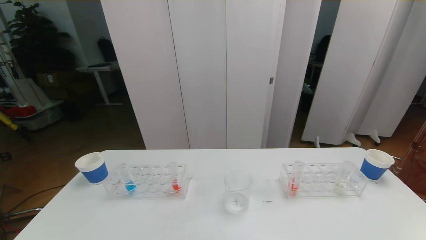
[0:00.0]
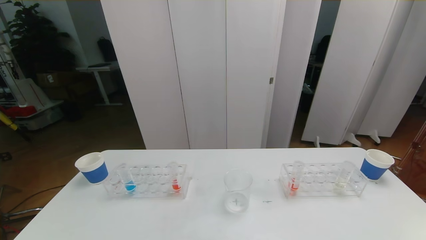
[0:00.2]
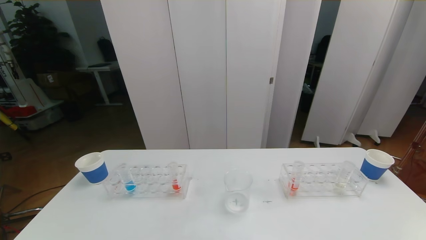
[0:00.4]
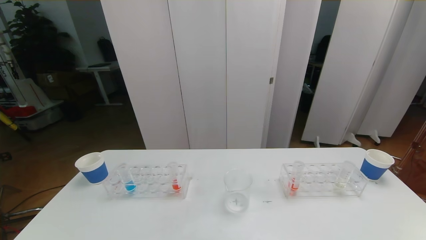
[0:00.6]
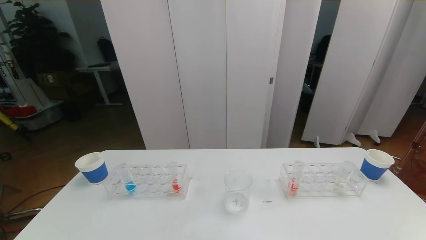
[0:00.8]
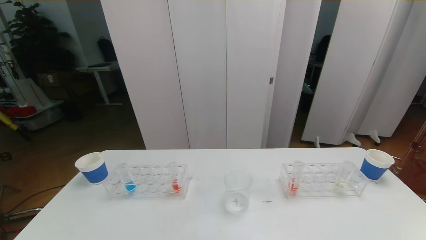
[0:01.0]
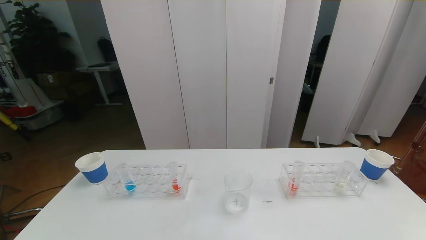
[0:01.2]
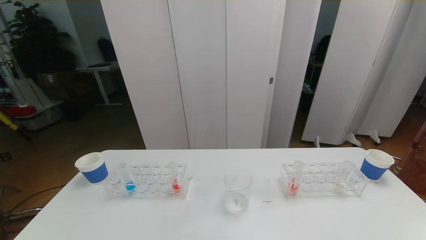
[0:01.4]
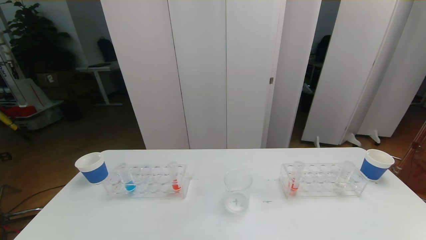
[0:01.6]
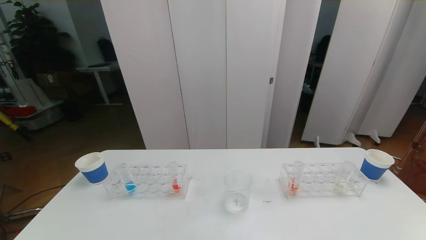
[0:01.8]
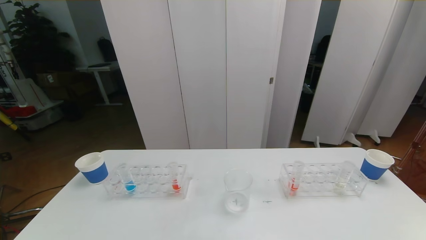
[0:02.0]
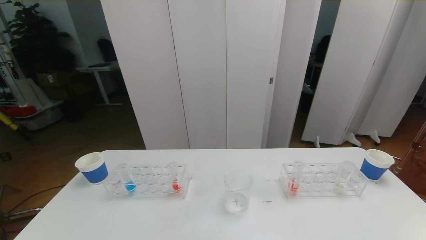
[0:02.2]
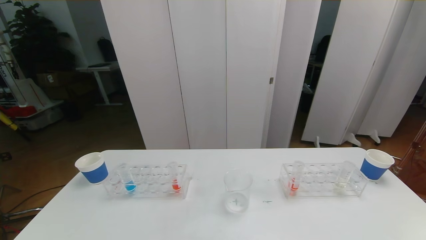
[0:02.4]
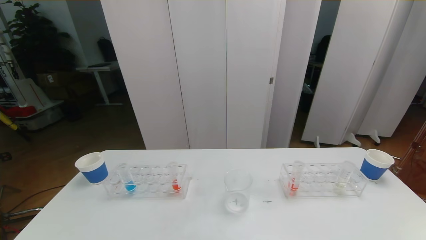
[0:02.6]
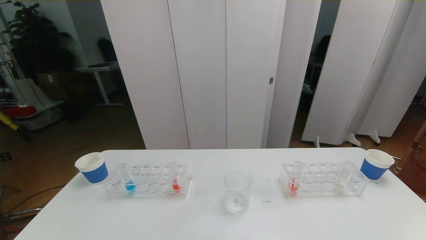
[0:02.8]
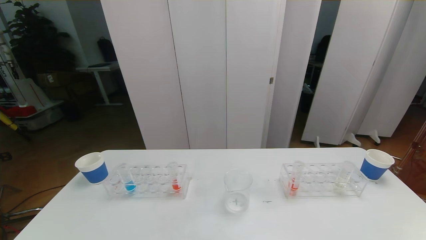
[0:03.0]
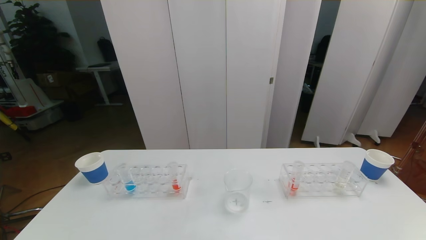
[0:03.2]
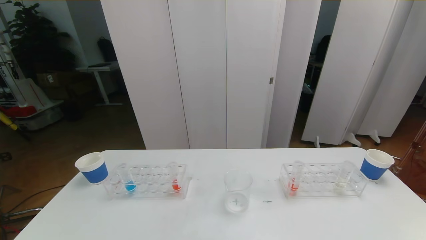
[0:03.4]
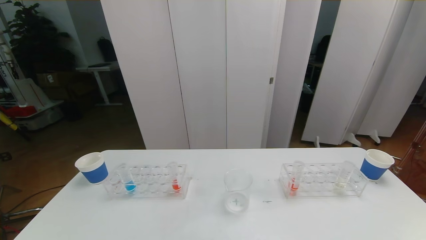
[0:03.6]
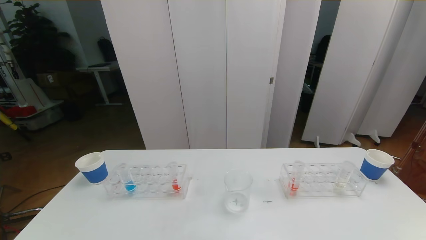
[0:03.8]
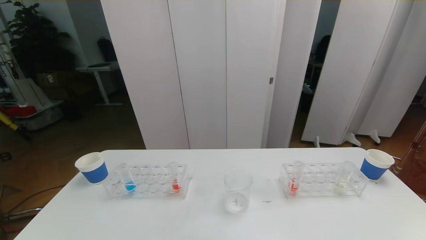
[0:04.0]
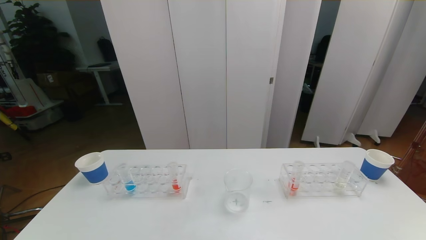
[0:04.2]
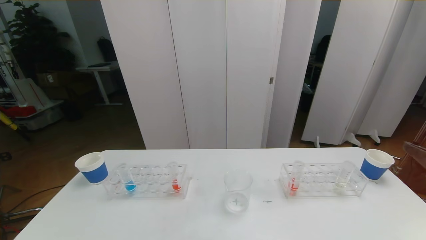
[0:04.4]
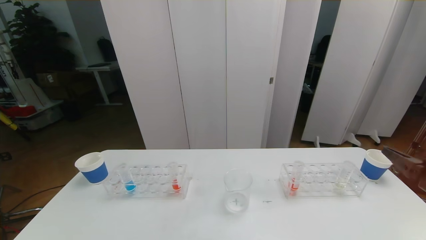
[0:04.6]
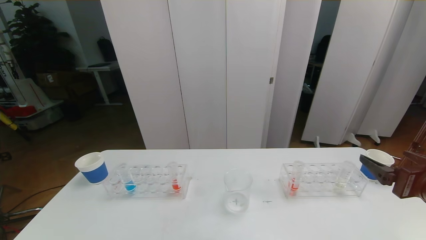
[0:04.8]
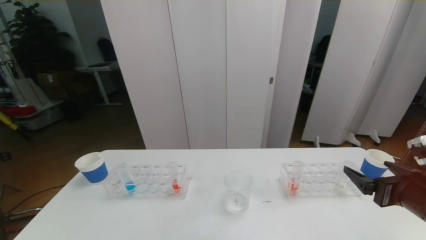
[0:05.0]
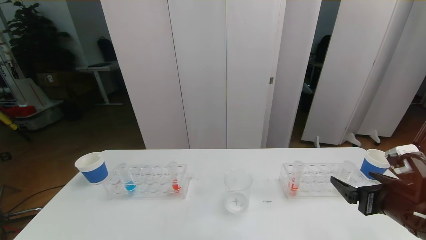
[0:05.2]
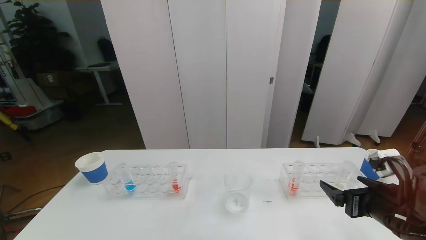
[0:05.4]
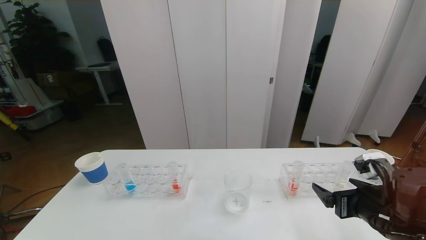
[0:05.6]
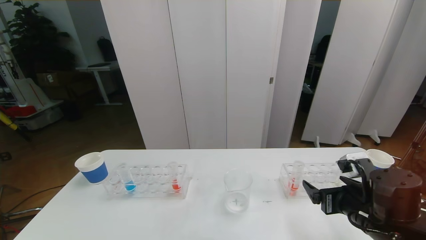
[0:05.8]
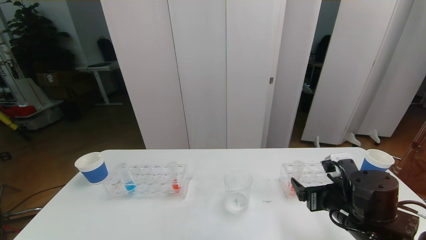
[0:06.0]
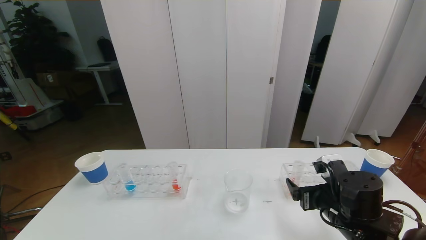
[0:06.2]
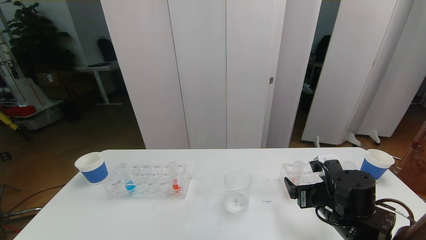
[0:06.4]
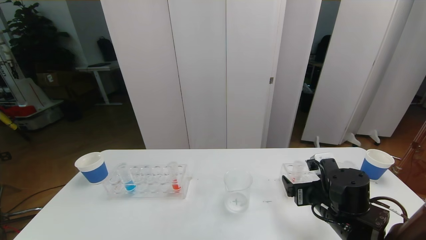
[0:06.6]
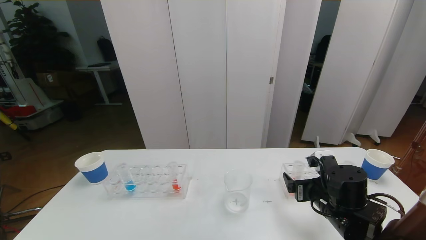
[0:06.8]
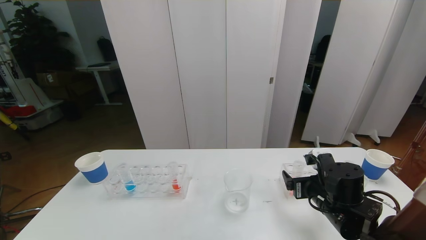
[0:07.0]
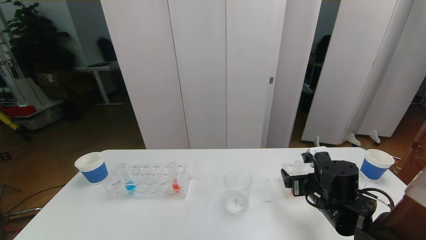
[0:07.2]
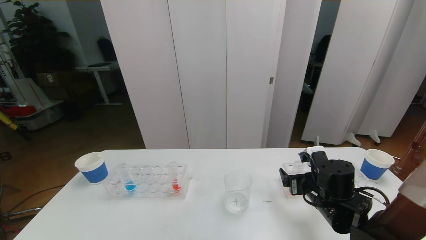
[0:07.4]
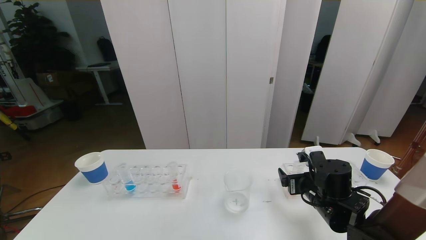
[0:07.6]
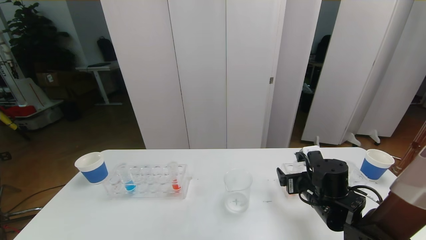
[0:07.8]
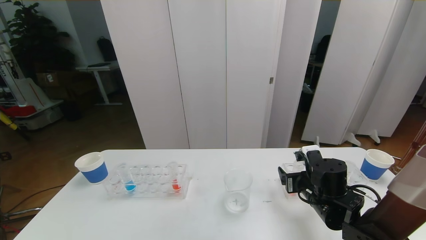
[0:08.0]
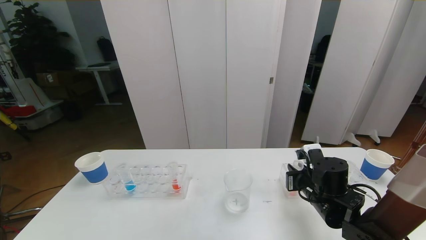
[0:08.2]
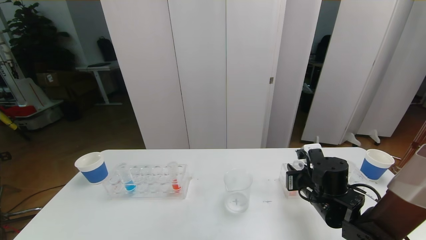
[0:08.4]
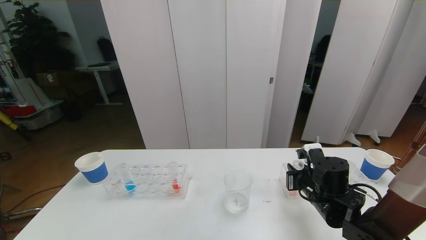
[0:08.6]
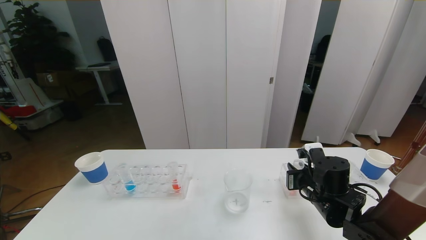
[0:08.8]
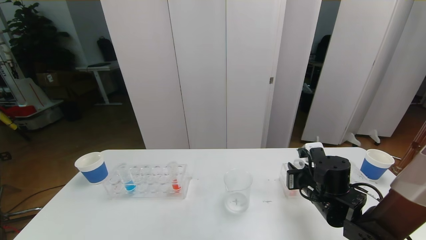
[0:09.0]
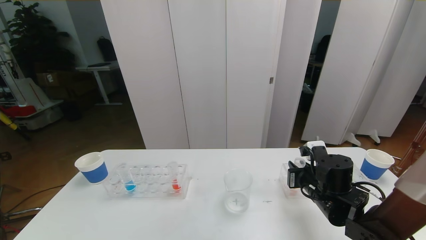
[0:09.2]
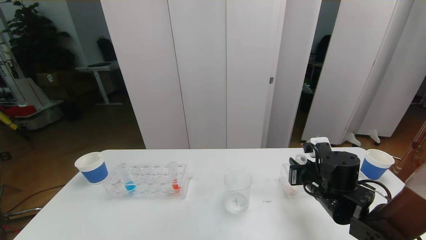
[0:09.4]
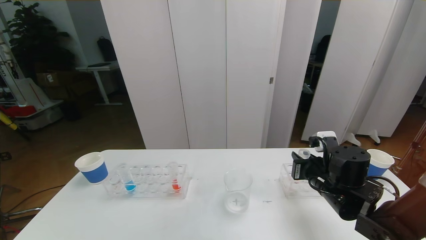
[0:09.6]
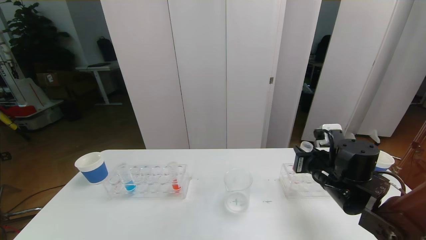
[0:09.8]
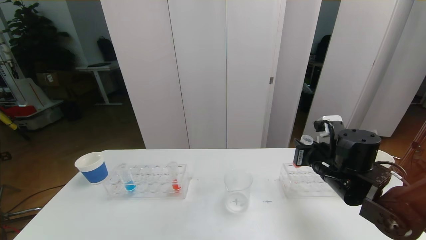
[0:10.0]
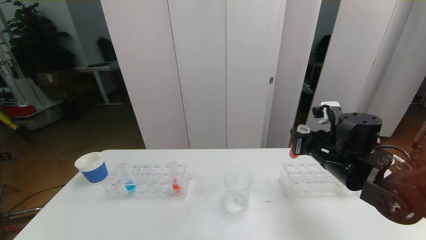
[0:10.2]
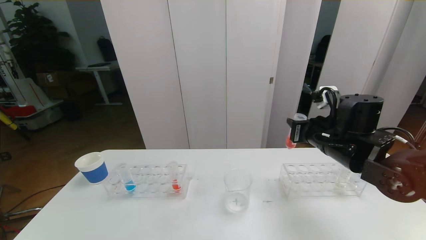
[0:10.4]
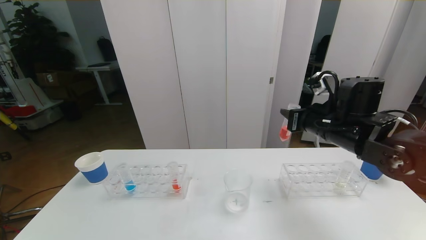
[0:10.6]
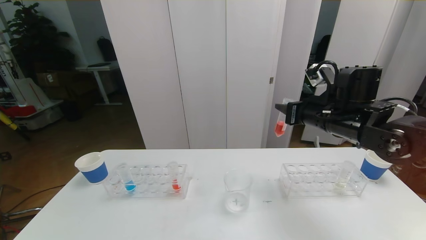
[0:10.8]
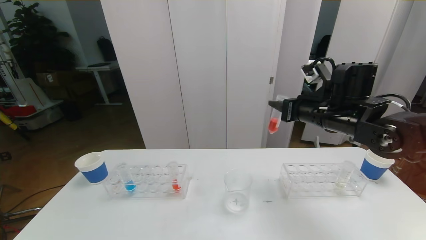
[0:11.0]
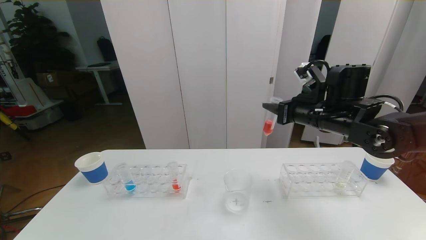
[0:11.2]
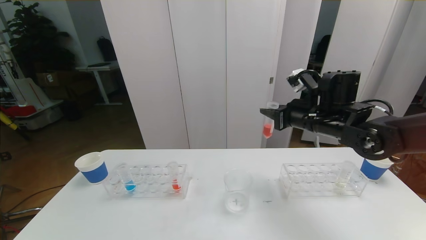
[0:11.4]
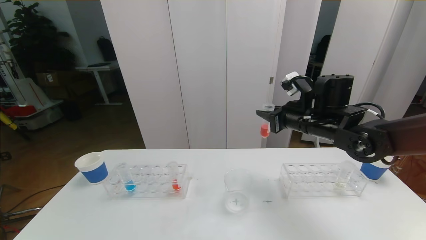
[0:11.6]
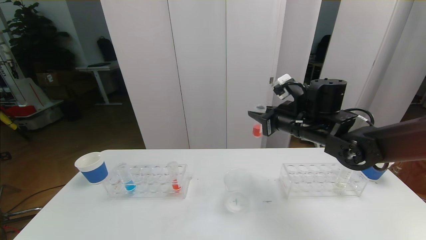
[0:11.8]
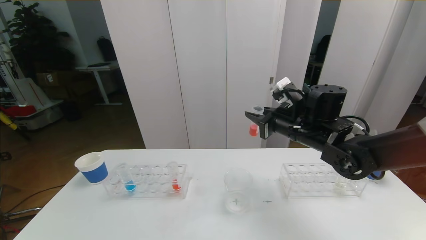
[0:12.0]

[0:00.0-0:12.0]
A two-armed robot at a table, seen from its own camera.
Task of the whole recording: pick up the test tube with red pigment the test tube with blue pigment and the test tube with white pigment by grippers and pour them into the beaker.
0:00.0 to 0:01.6: Both grippers stay put.
0:04.4 to 0:06.0: The right gripper goes roughly 20 cm downward, to the left and forward.
0:06.0 to 0:07.6: The right gripper heads forward, covering about 5 cm.
0:07.6 to 0:09.0: The right gripper closes.
0:09.0 to 0:10.4: The right gripper moves upward, roughly 10 cm.
0:10.4 to 0:12.0: The right gripper changes place by some 5 cm.

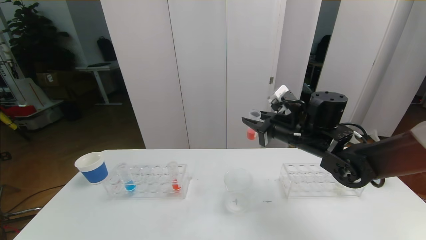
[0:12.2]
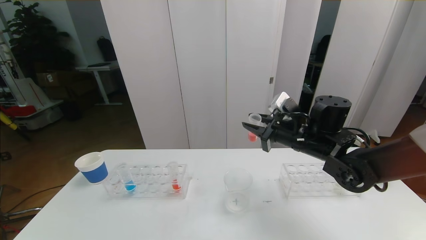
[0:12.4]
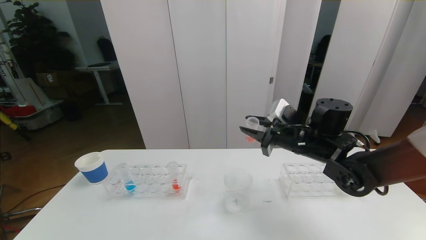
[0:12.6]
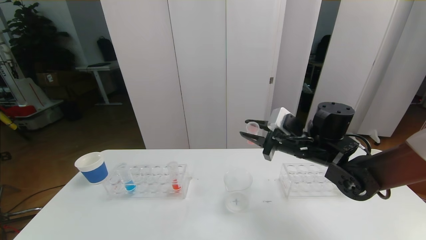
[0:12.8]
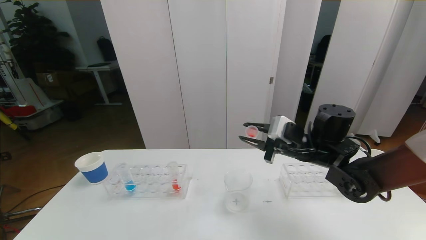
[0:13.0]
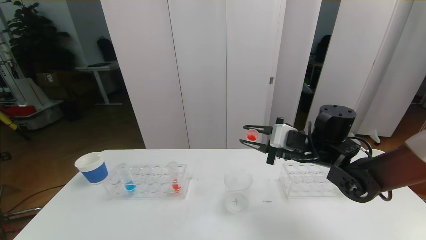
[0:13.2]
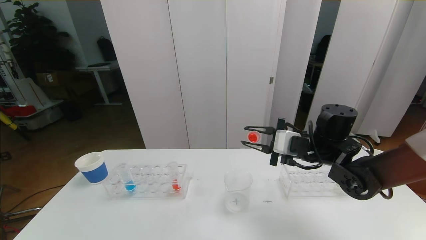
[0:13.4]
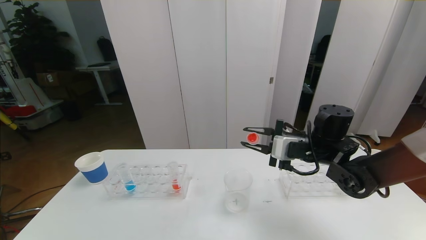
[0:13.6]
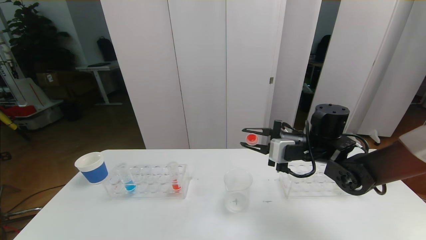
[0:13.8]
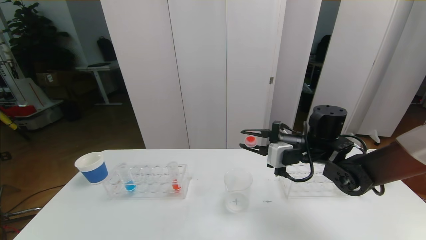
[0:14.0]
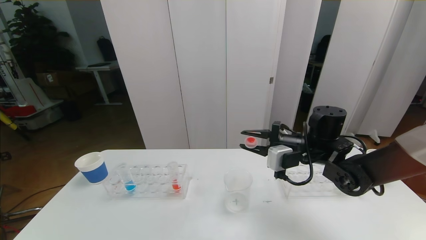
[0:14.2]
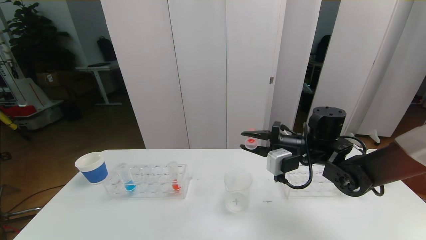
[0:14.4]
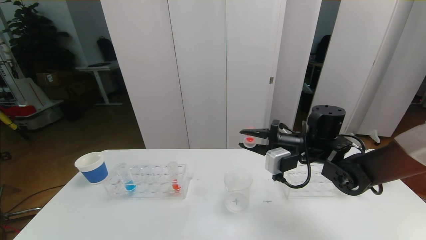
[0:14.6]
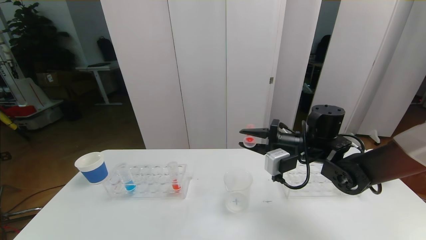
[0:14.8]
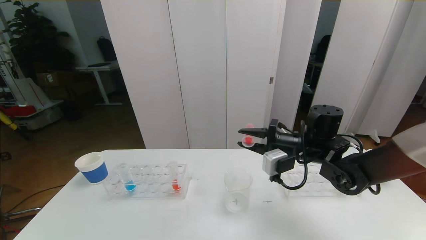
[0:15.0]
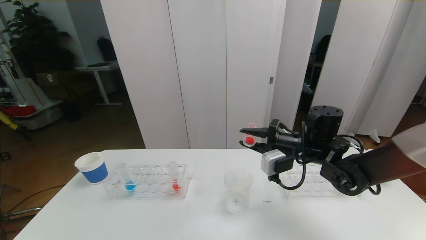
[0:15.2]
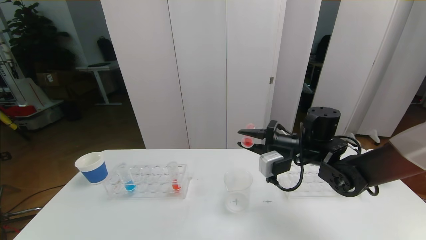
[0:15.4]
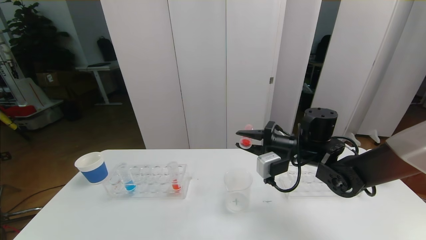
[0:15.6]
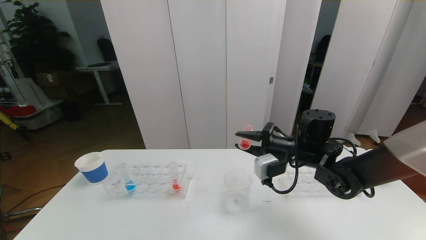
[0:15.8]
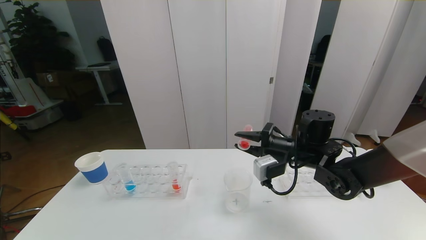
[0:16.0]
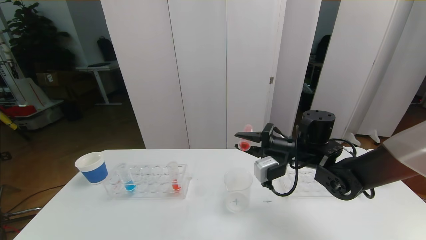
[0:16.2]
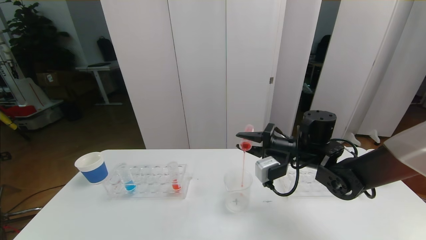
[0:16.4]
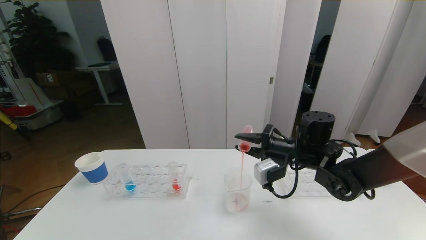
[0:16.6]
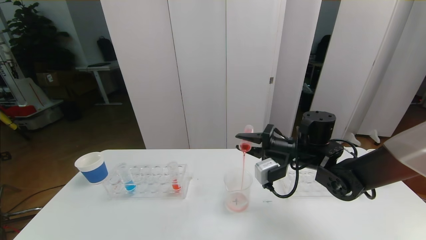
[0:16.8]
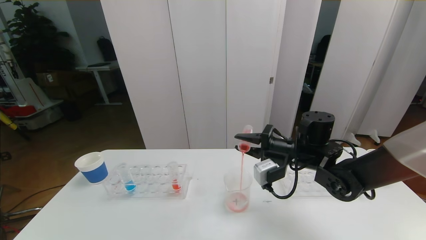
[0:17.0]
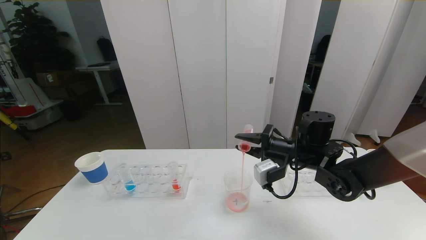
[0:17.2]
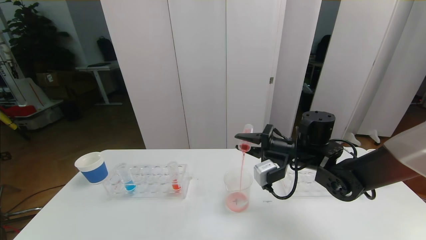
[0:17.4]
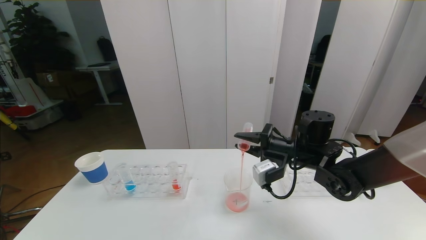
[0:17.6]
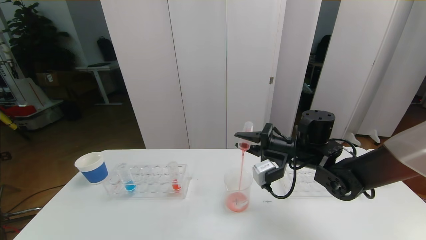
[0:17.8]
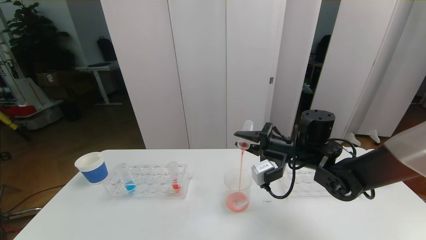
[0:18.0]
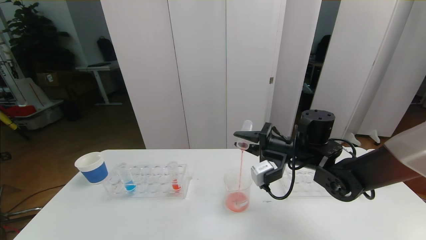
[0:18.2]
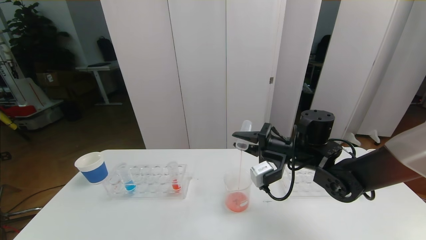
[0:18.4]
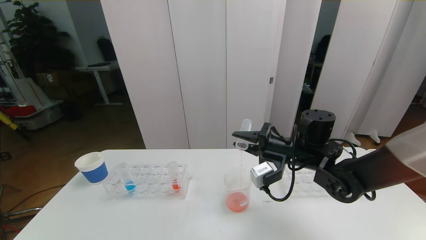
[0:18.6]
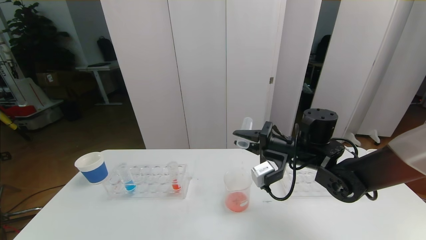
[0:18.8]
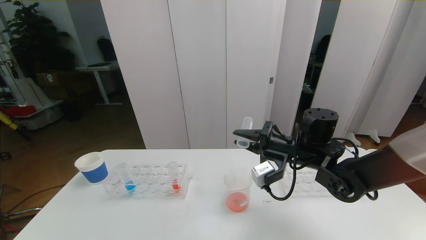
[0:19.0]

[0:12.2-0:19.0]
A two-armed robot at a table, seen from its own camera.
Task of the whole recording: pick up the test tube with red pigment the test tube with blue pigment and the test tube with white pigment by grippers and pour them into the beaker.
0:15.0 to 0:17.6: The grippers move only a little.
0:17.6 to 0:19.0: The grippers move only a little.
